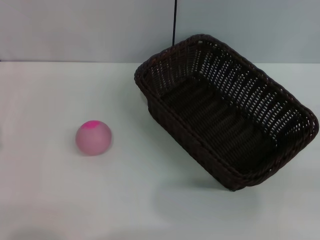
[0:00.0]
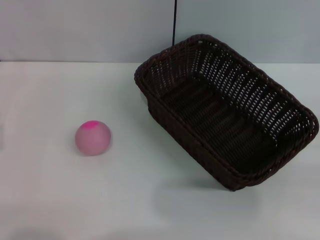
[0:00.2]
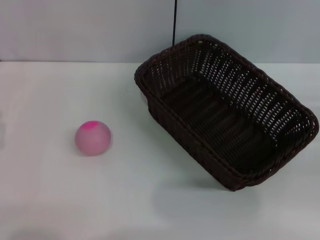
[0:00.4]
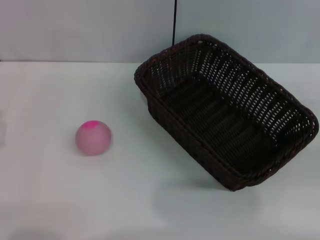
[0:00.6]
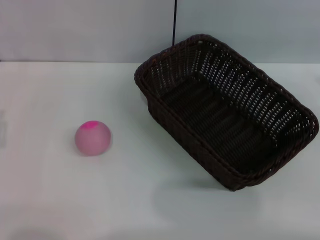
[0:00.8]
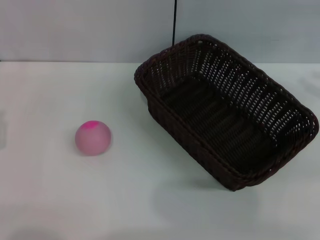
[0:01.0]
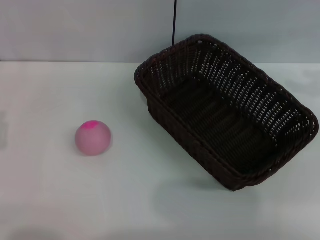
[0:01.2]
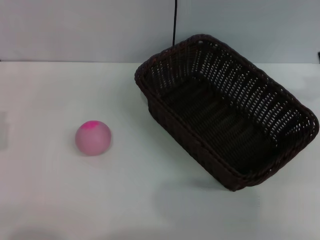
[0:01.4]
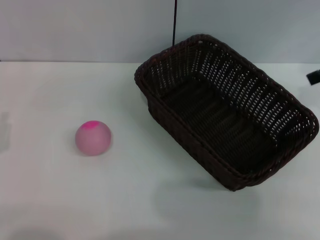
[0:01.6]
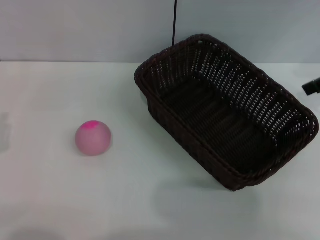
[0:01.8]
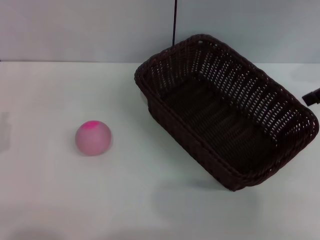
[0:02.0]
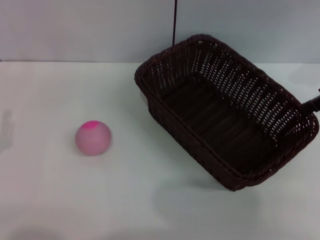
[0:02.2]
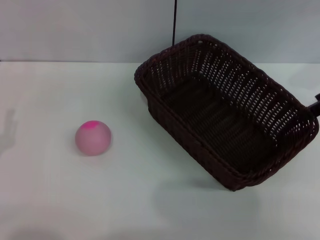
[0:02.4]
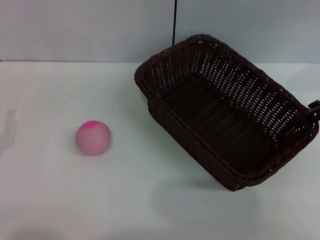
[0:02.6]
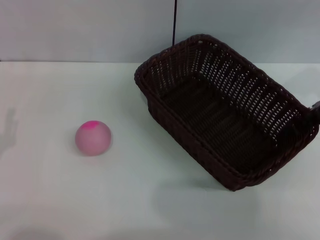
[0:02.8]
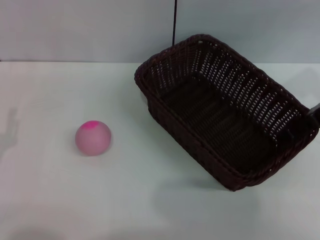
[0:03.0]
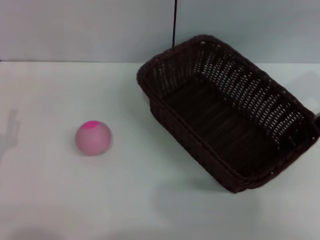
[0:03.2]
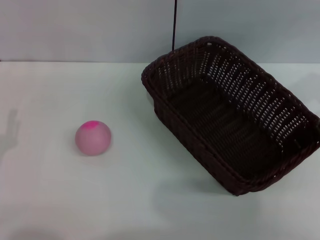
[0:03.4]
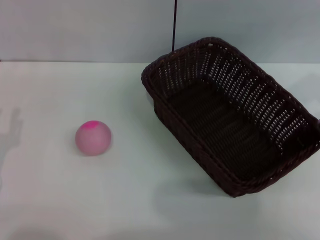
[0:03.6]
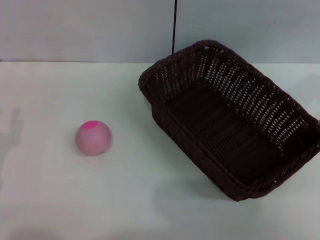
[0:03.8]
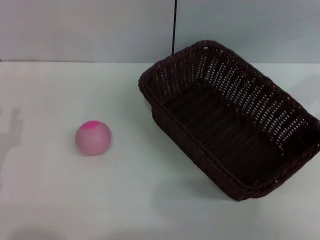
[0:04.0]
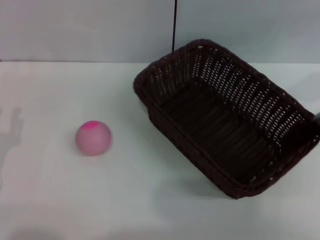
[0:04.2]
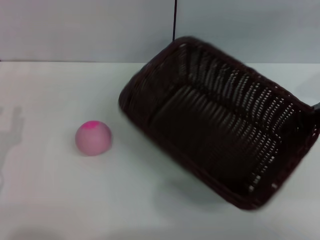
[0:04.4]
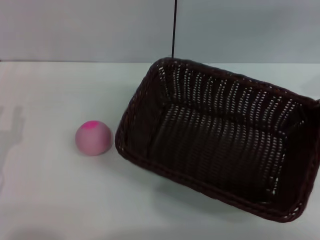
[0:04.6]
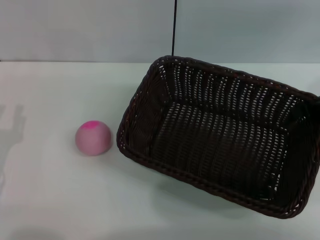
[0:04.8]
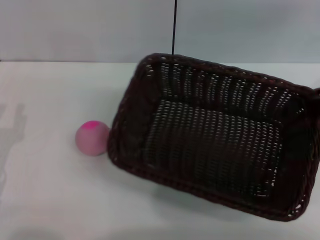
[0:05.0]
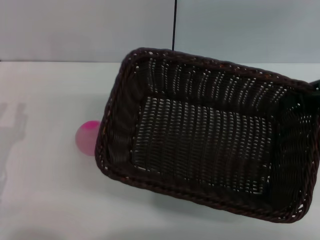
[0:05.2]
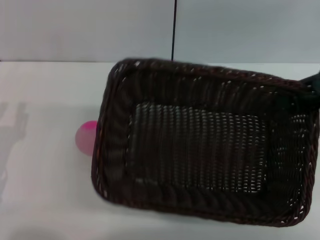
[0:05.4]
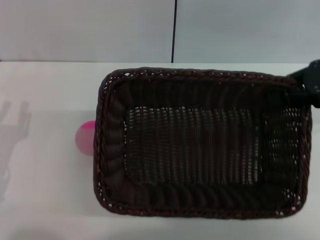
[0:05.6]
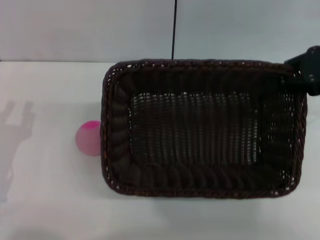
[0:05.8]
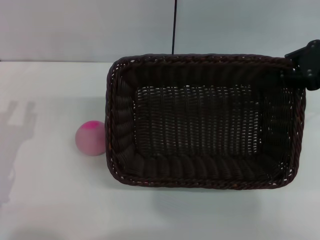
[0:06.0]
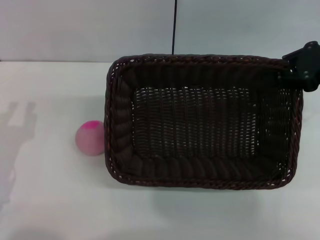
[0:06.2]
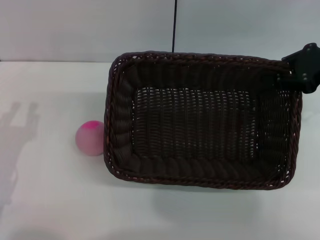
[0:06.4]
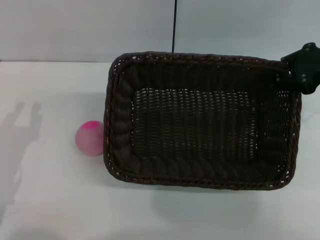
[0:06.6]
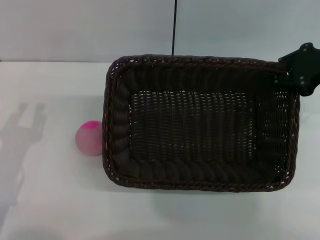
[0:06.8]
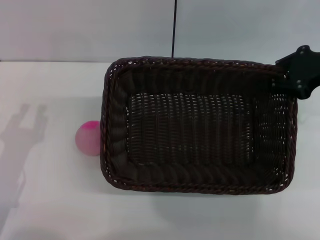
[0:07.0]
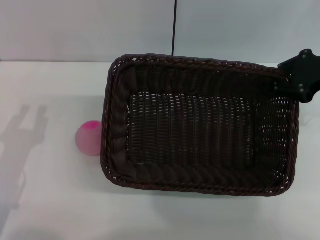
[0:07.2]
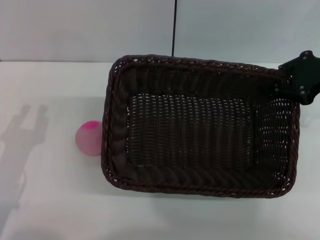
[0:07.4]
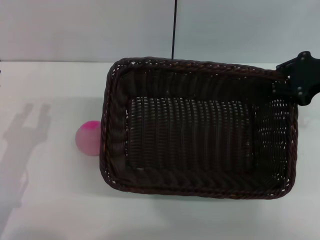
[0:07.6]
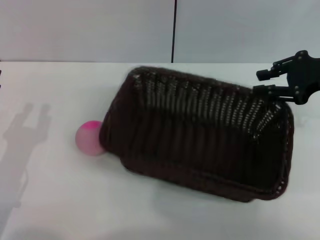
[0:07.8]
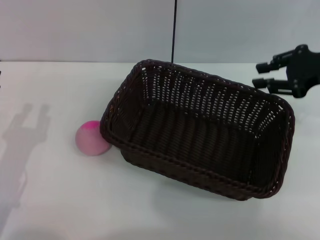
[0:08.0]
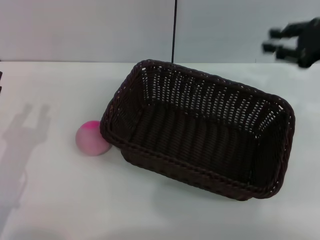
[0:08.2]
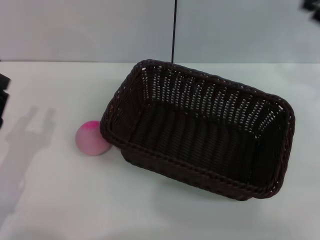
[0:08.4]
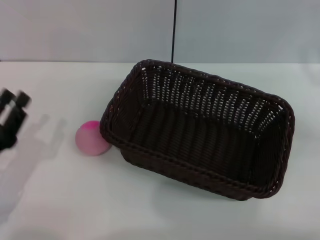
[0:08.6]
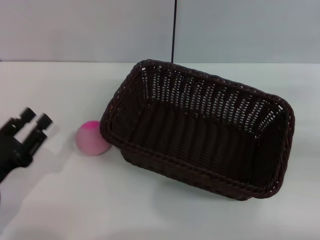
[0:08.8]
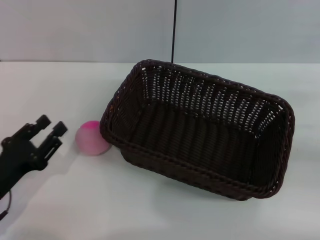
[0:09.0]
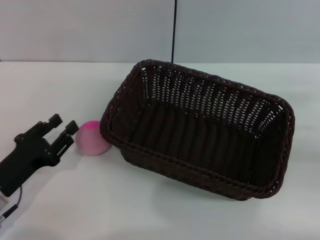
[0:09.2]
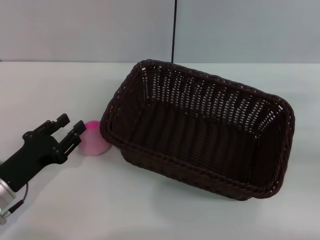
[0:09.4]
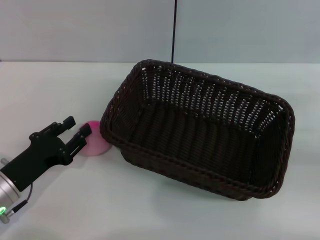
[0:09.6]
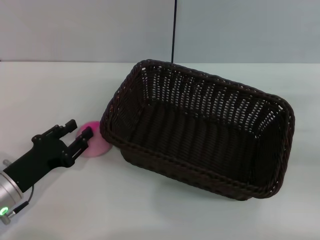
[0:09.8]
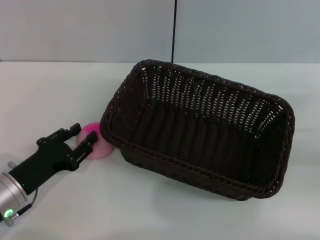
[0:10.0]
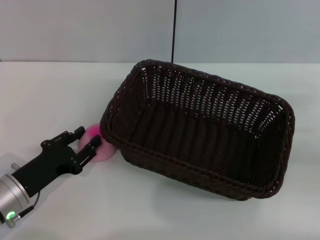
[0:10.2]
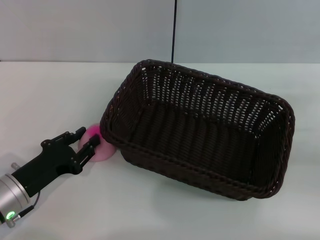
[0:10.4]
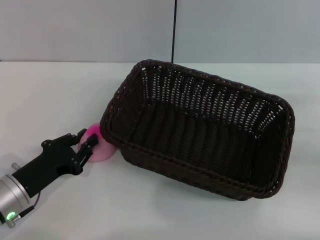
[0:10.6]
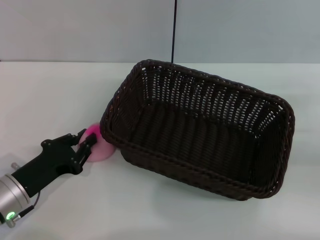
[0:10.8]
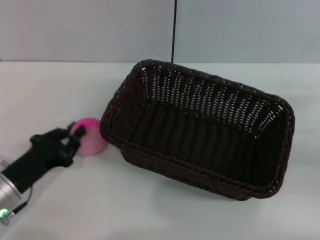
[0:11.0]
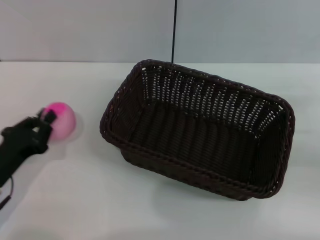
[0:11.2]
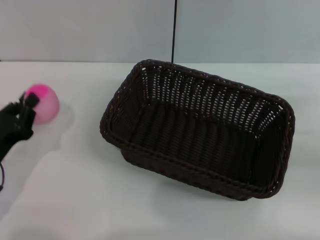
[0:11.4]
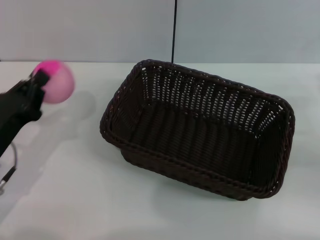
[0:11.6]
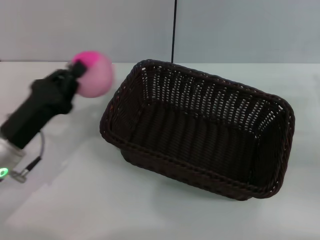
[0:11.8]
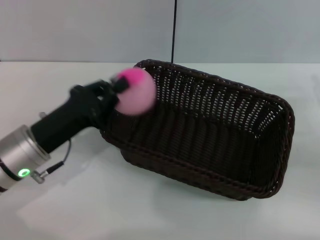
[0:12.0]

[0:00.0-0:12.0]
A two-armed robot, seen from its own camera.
Step, 0:00.0 to 0:04.4: Pick up the dark basket with the right gripper.
Step, 0:04.6 to 0:08.0: Place the dark basket in the center of view with the right gripper.
Step, 0:08.2 to 0:11.4: Pick up the peach with the left gripper.
0:00.0 to 0:01.6: The right gripper is displaced upward and forward by about 25 cm, and opens.
0:03.0 to 0:04.4: The right gripper closes.
0:06.0 to 0:07.6: There are only small adjustments of the grippers.
0:07.6 to 0:09.0: The right gripper travels to the right, backward and downward by roughly 15 cm.
0:09.0 to 0:10.4: The grippers make only small movements.
0:10.4 to 0:12.0: The left gripper travels upward by approximately 5 cm, and closes its fingers.

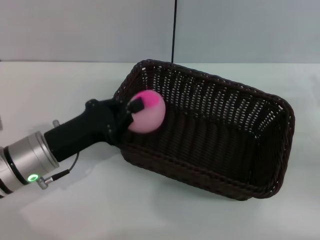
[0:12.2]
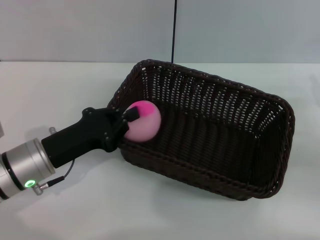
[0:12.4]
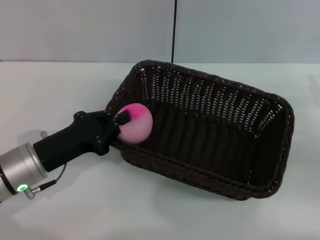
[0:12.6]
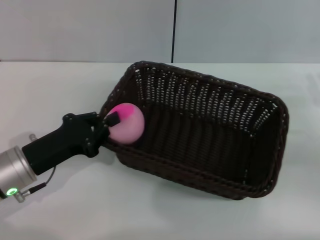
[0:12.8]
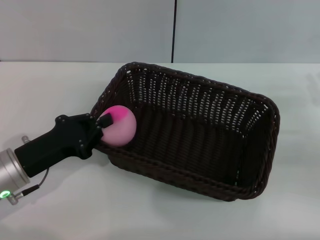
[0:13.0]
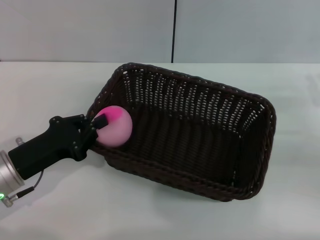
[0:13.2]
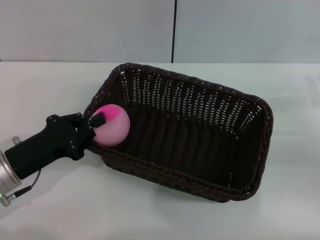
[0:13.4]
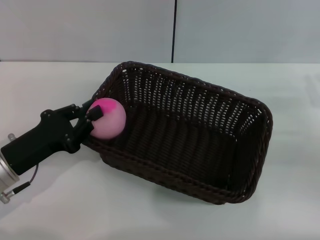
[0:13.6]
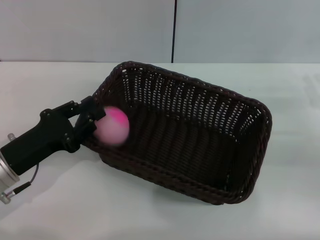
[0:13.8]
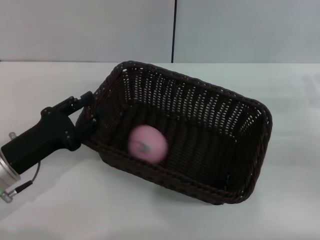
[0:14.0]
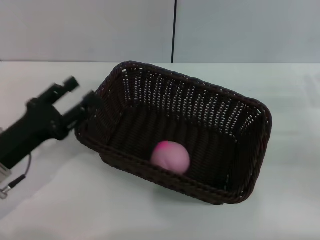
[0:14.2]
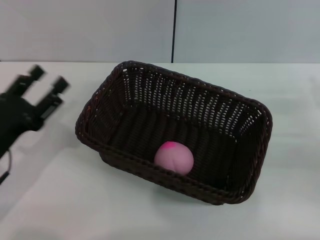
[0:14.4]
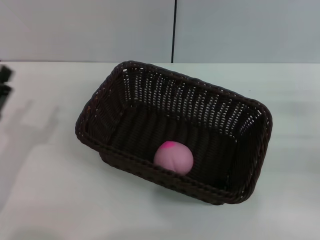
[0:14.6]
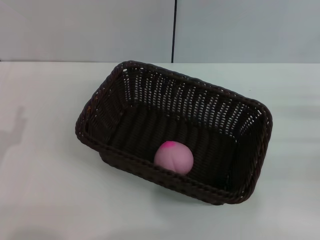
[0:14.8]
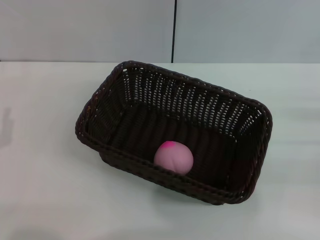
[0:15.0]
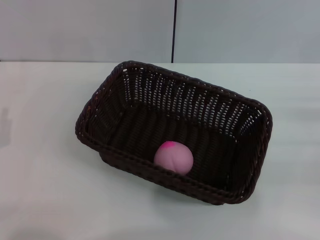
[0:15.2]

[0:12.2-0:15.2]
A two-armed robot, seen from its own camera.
Step, 0:12.2 to 0:14.0: Place the peach into the basket with the left gripper.
0:12.2 to 0:13.8: The left gripper shifts roughly 5 cm to the left.
0:13.8 to 0:15.2: The right gripper ends up some 5 cm from where it was, while the left gripper is displaced to the left and backward by roughly 10 cm, and opens up.

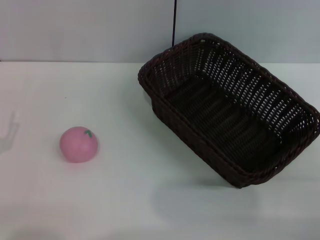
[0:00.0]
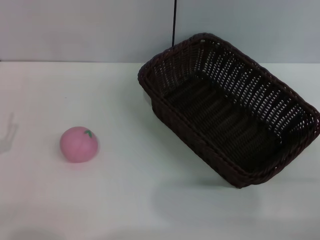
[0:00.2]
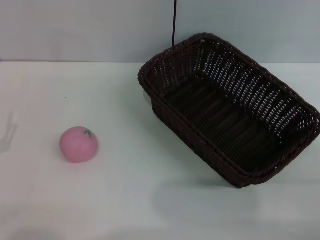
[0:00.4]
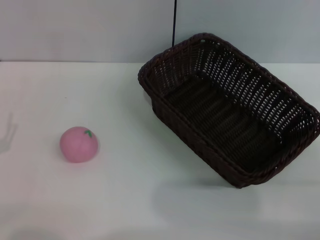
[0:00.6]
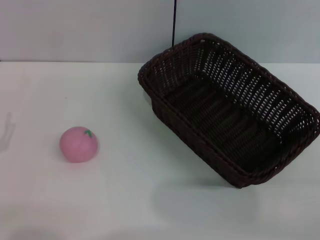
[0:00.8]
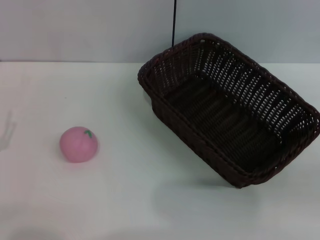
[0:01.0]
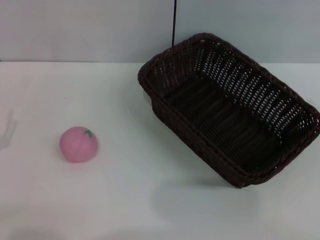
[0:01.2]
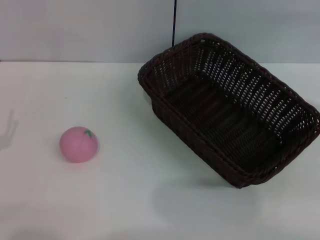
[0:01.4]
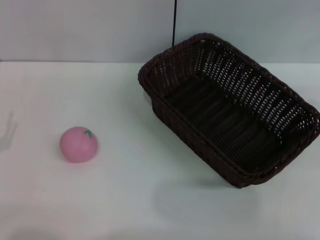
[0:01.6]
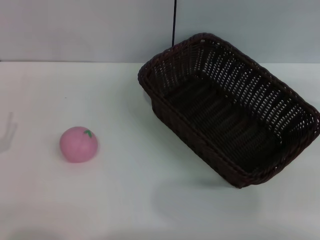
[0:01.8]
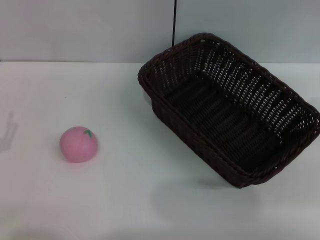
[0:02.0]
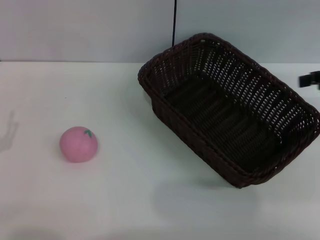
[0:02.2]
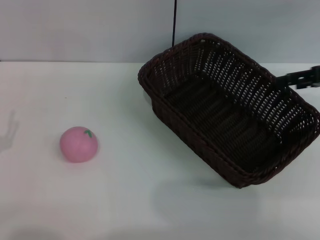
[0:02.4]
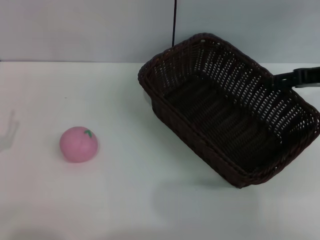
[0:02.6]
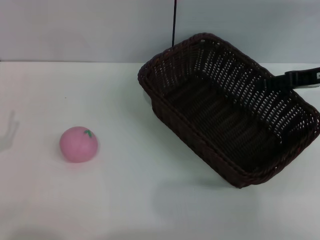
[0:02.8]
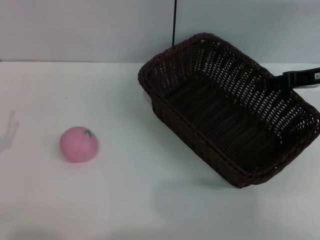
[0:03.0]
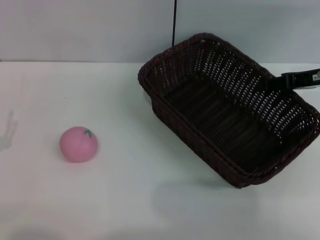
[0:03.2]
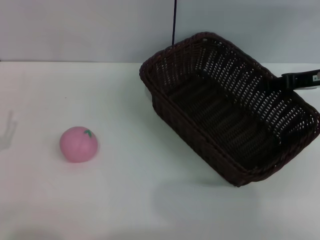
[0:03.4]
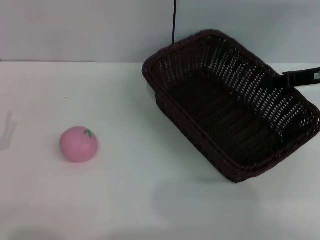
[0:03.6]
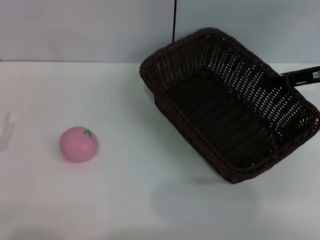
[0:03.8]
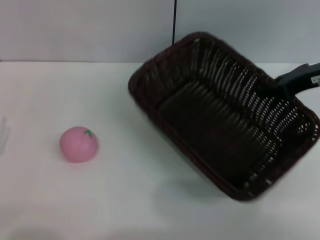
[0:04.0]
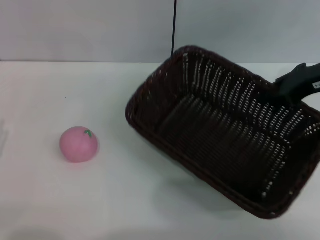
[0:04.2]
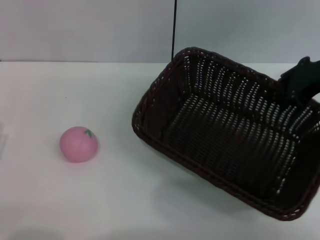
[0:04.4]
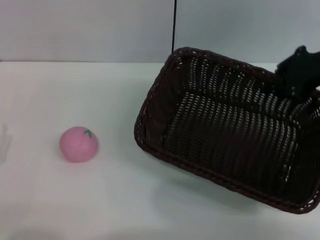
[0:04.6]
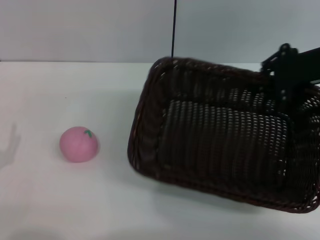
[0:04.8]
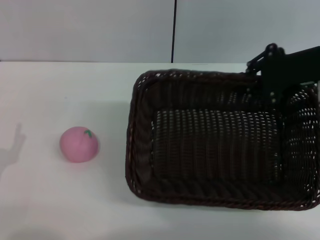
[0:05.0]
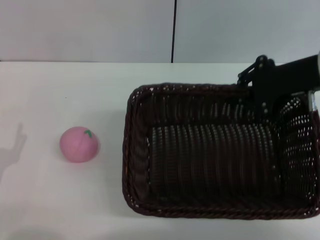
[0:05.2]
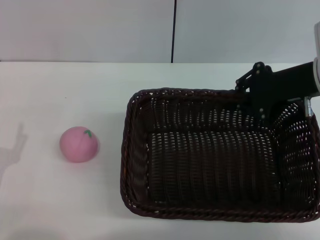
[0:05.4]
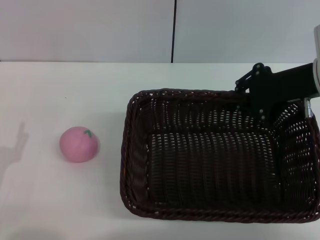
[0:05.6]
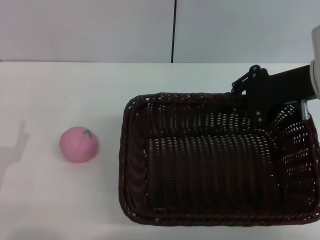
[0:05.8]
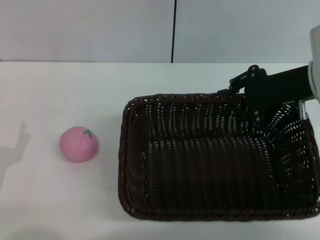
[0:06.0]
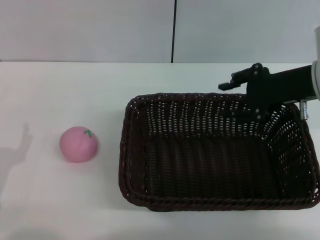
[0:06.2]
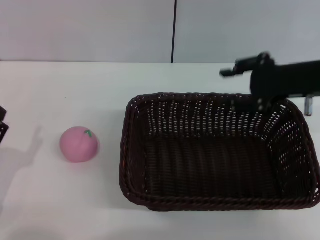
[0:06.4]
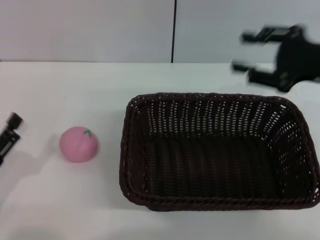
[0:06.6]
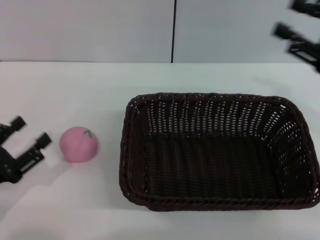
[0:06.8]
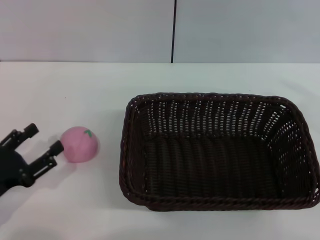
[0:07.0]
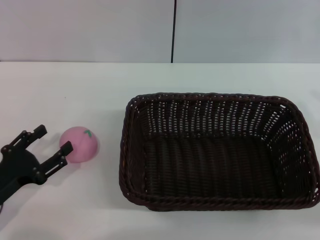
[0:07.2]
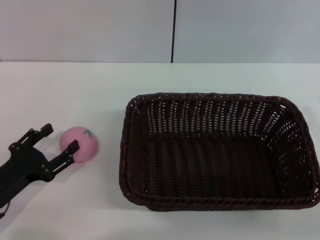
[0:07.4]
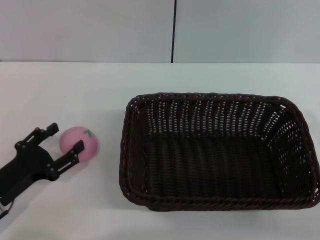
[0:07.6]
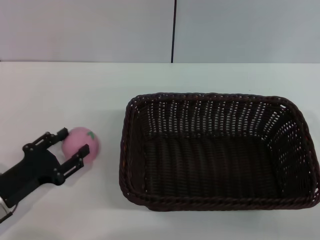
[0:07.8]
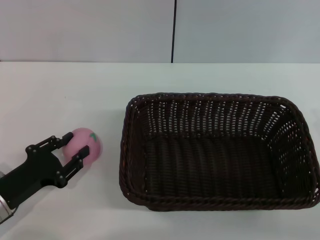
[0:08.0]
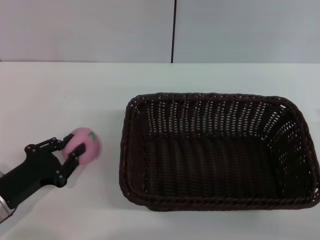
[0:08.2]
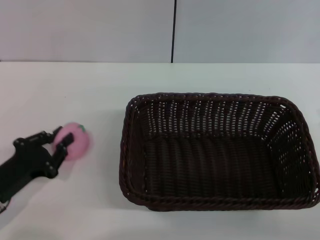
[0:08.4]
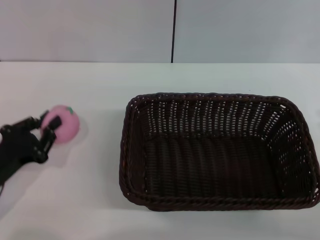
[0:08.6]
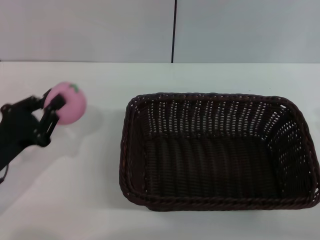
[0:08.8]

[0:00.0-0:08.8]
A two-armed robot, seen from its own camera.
Step, 0:00.0 to 0:04.6: Pick up the dark basket with the right gripper.
Step, 0:04.8 to 0:06.4: Place the dark basket in the center of view with the right gripper.
Step, 0:06.6 to 0:08.6: Pick up the peach with the left gripper.
0:01.4 to 0:03.0: The right gripper heads forward, to the left and downward, covering roughly 20 cm.
0:03.0 to 0:04.4: The right gripper travels upward by some 5 cm, and closes.
0:05.8 to 0:07.4: The right gripper shifts roughly 20 cm backward, to the right and downward, and opens up.
0:07.4 to 0:08.8: The left gripper closes.
